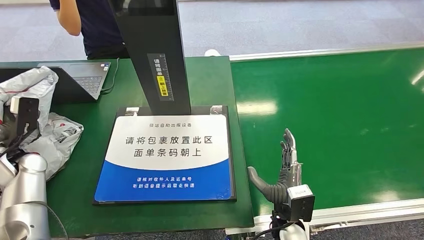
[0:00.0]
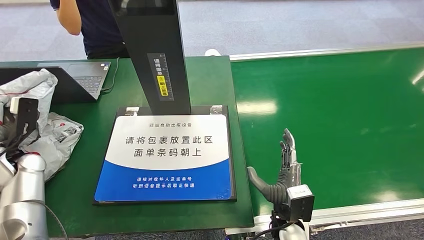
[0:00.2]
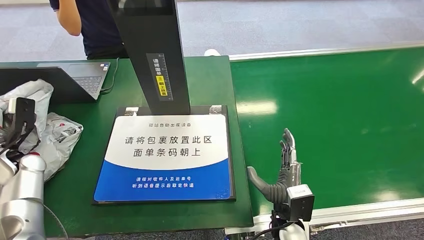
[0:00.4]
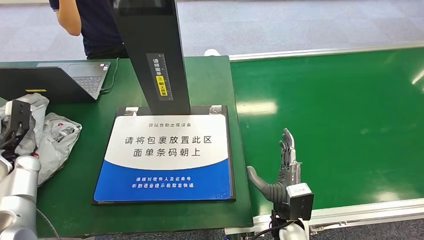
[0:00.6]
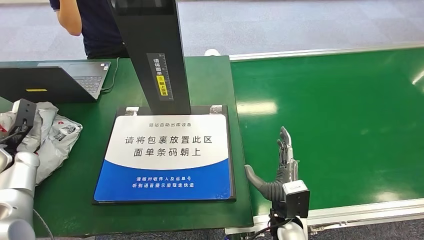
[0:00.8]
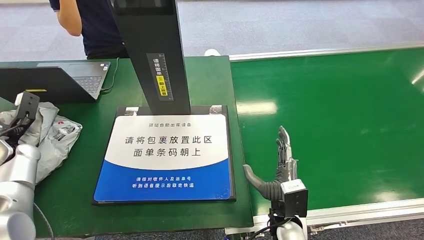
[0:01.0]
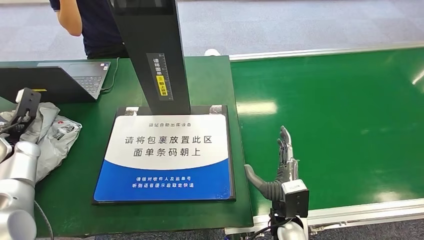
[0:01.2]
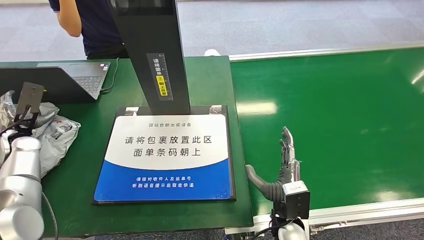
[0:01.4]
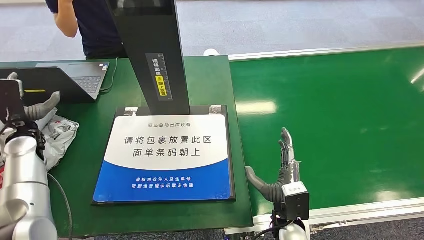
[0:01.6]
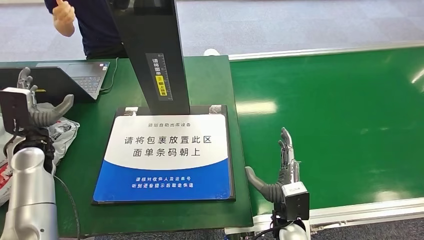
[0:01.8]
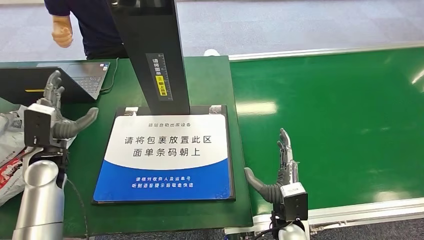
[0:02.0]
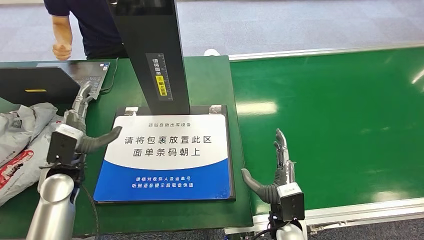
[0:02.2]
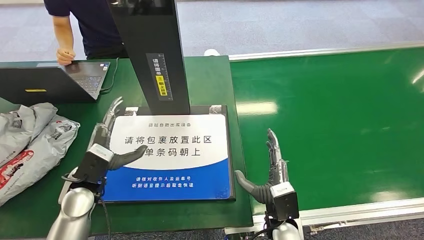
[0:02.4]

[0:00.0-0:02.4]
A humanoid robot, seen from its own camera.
Task of the whole recording: Weigh the package on the weighing device and place it in the left basket.
Step, 0:00.0 to 0:02.4: Place the package into the parcel locker.
0:01.2 to 0:02.4: The left hand travels to the right by roughly 20 cm.

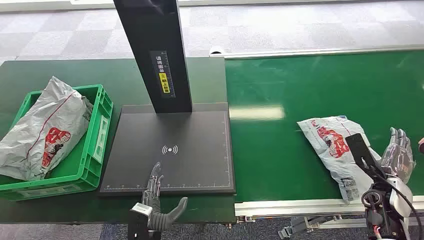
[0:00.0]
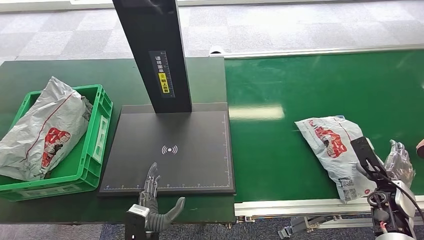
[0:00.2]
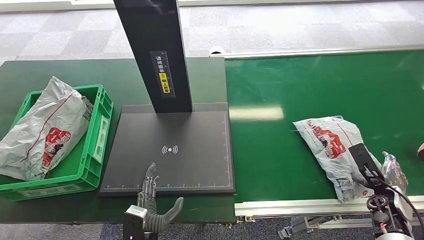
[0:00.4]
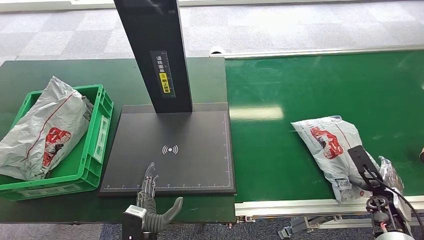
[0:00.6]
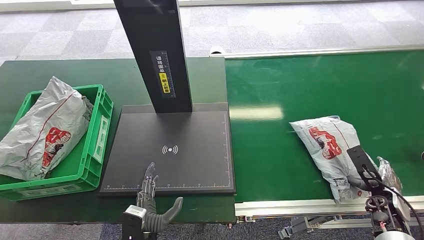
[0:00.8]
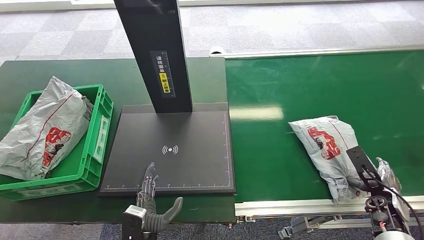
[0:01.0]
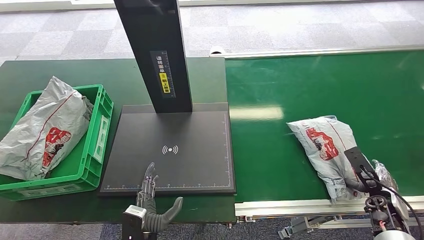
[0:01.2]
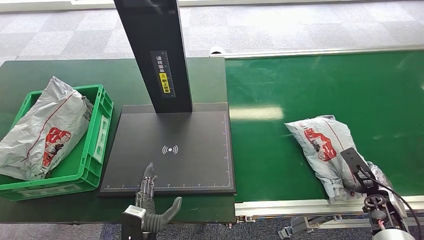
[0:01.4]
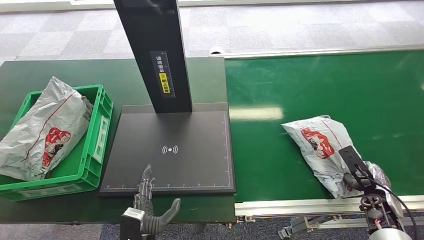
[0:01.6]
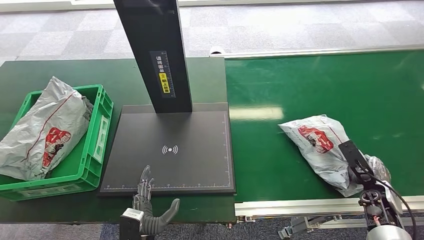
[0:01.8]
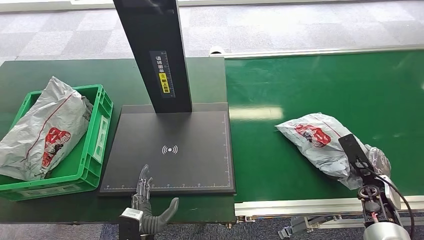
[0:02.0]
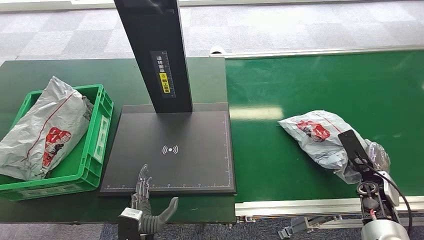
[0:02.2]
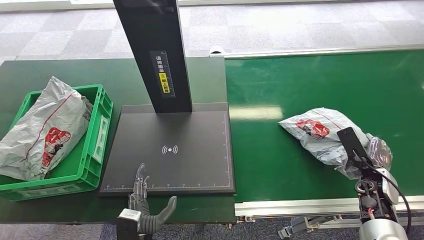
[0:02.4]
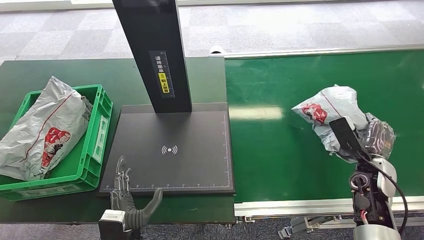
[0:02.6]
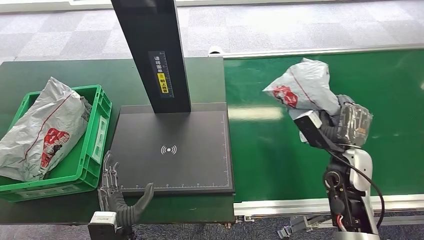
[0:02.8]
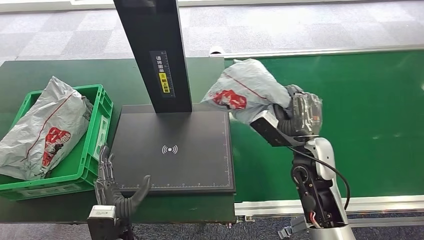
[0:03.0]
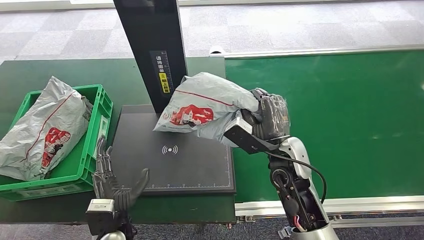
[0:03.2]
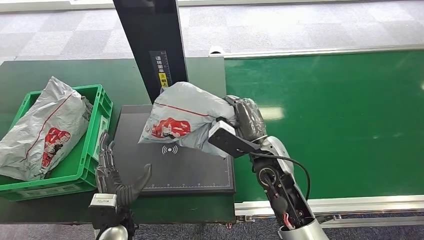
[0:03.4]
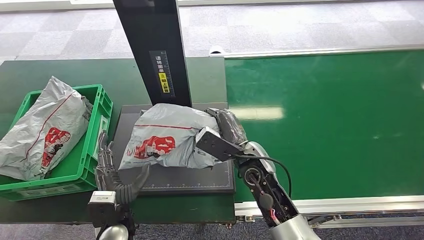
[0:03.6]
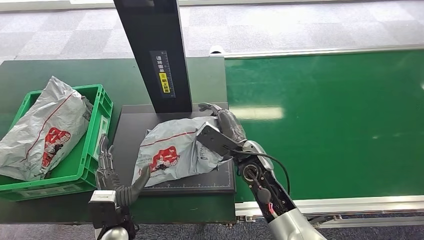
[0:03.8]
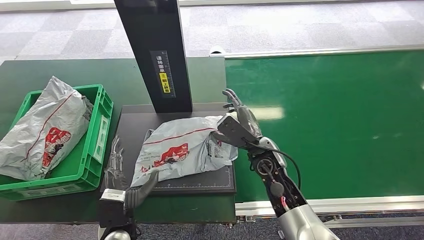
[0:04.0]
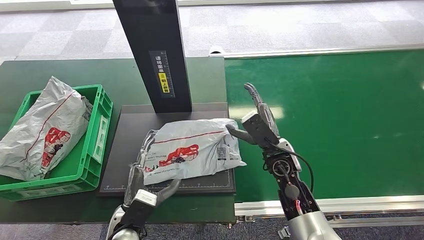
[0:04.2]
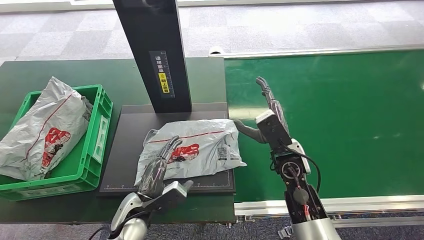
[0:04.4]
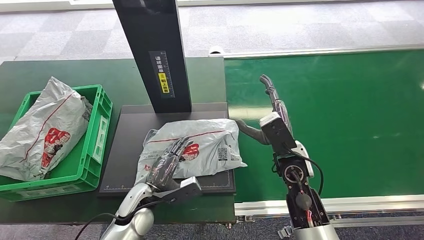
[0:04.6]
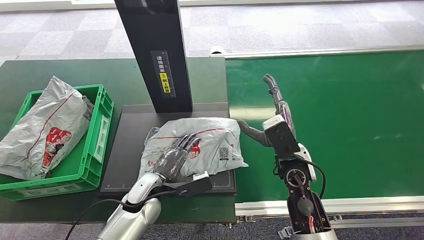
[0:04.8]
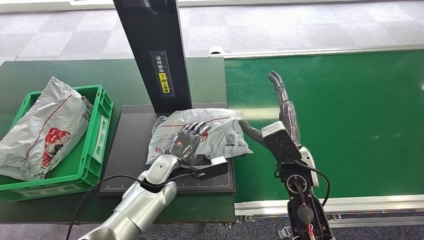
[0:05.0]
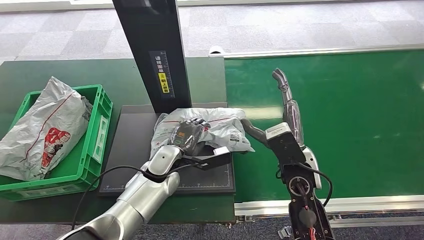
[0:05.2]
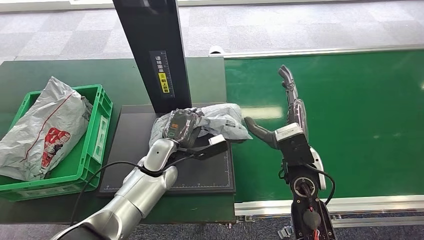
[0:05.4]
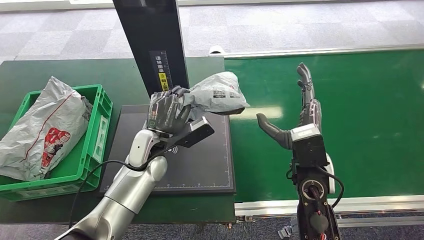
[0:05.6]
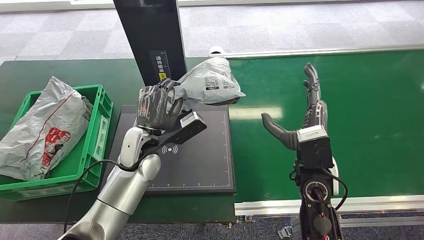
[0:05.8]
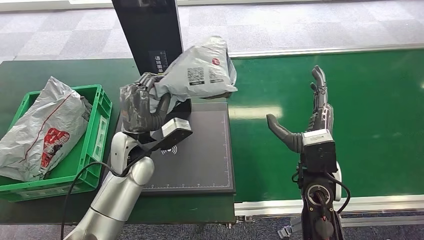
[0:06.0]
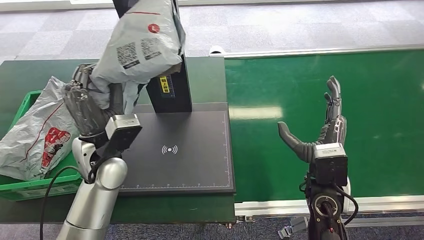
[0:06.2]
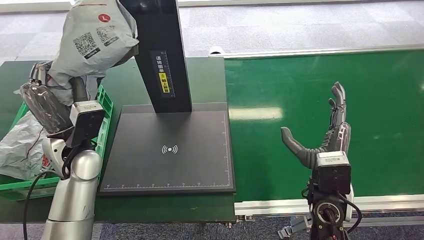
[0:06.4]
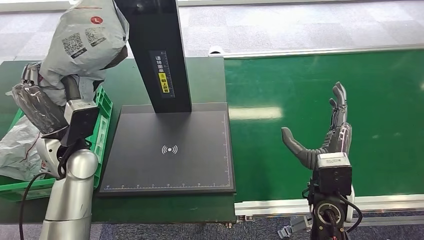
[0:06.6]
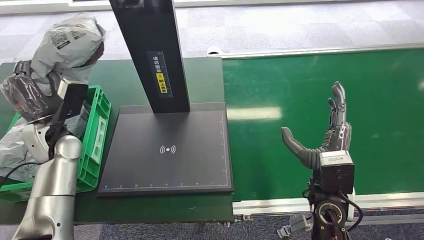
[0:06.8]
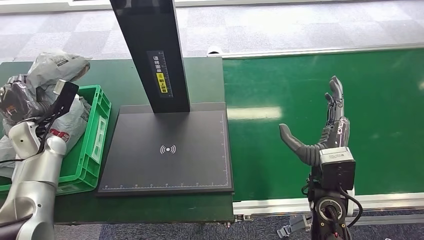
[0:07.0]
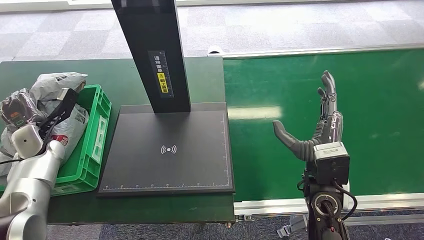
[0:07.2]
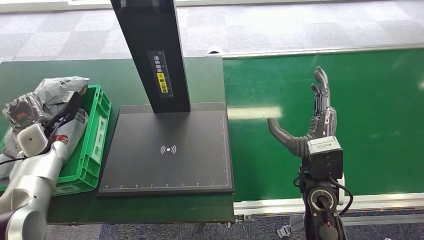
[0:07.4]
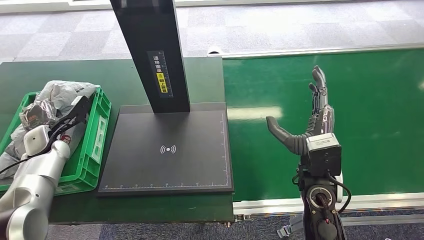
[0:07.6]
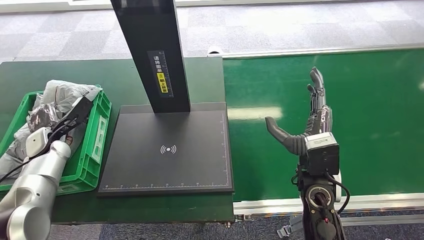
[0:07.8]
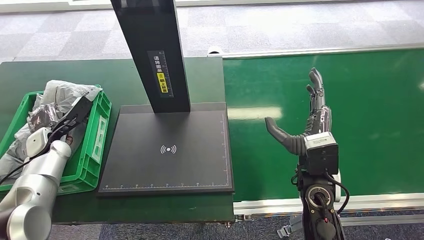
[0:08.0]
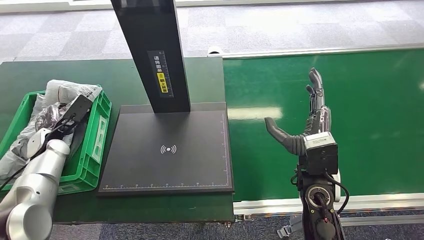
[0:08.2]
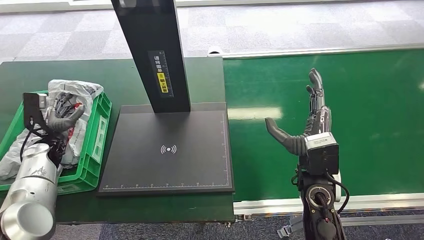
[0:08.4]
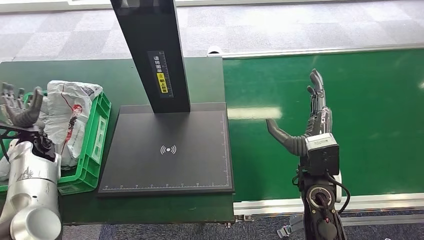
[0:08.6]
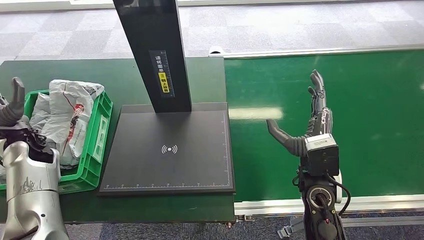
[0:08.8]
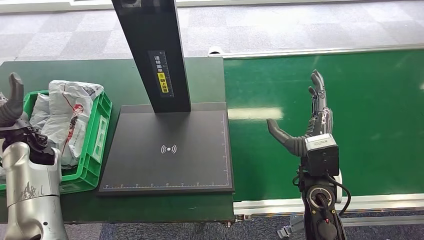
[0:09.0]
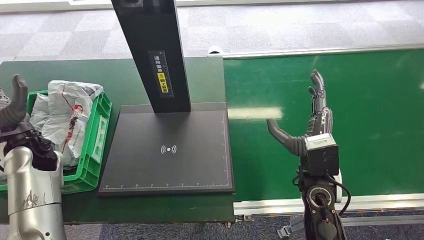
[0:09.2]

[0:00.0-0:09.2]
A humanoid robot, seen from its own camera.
Task of the whole recording: Weigh the package on the weighing device and place it in the left basket.
Step, 0:00.0 to 0:03.2: Pick up the package from the conveyor belt.
Step, 0:03.6 to 0:05.2: Place the package onto the inbound machine.
Step, 0:05.6 to 0:06.8: Pick up the package from the inbound machine.
Step, 0:07.0 to 0:09.2: Place the package into the parcel locker.
0:01.6 to 0:03.0: The left hand heads upward, covering about 5 cm; the right hand is displaced to the left and upward by approximately 30 cm.
0:03.0 to 0:04.6: The left hand heads forward, covering about 10 cm; the right hand moves approximately 10 cm to the left and comes back.
0:07.6 to 0:09.2: The left hand travels upward and to the right by roughly 10 cm.
